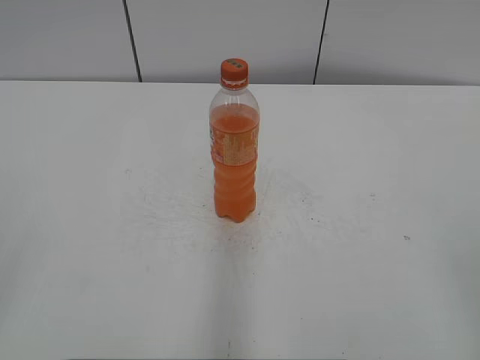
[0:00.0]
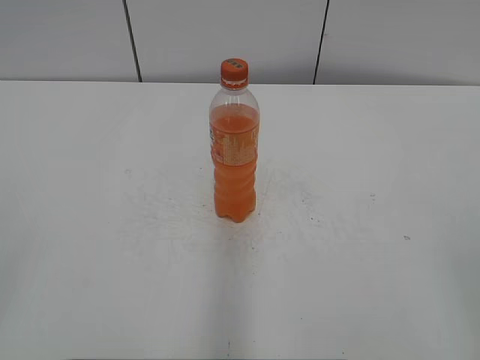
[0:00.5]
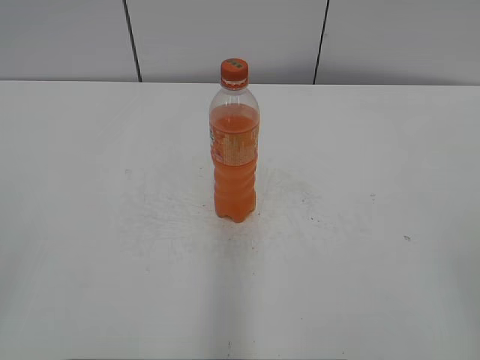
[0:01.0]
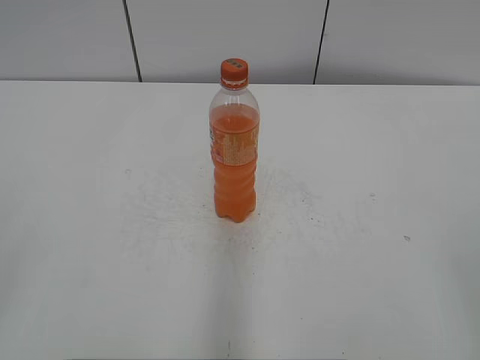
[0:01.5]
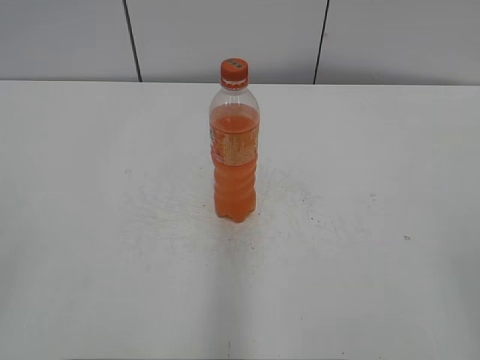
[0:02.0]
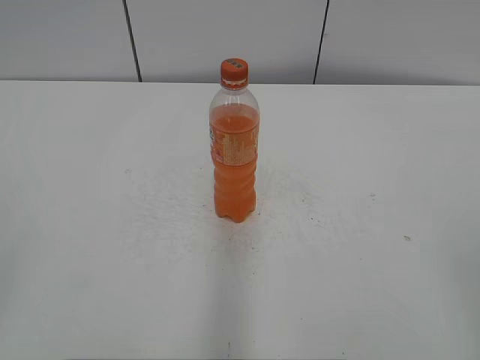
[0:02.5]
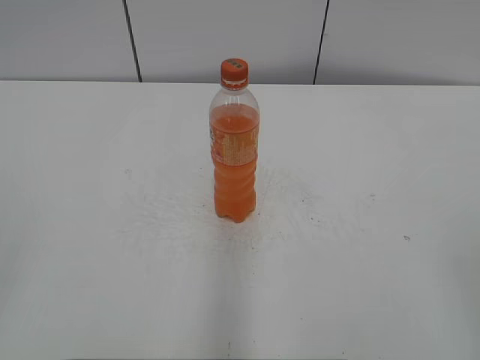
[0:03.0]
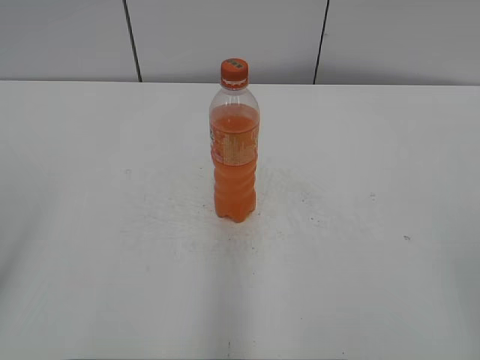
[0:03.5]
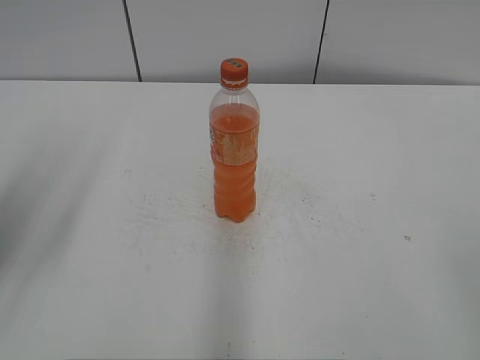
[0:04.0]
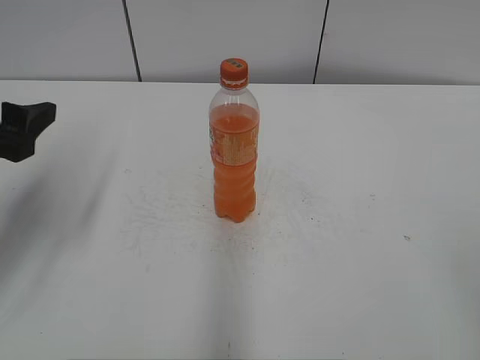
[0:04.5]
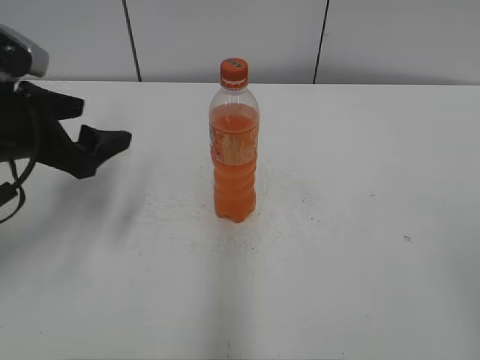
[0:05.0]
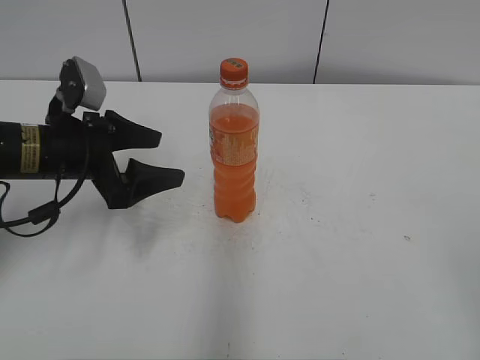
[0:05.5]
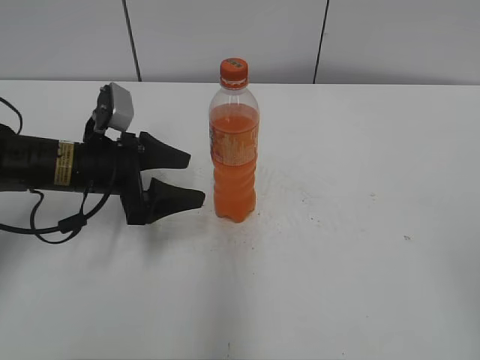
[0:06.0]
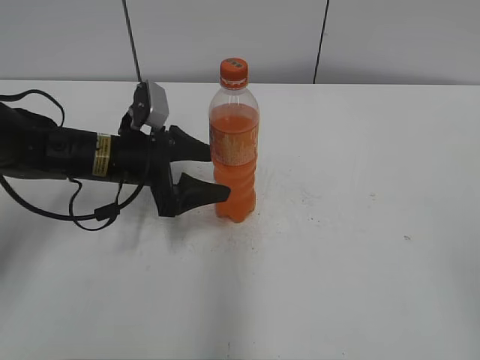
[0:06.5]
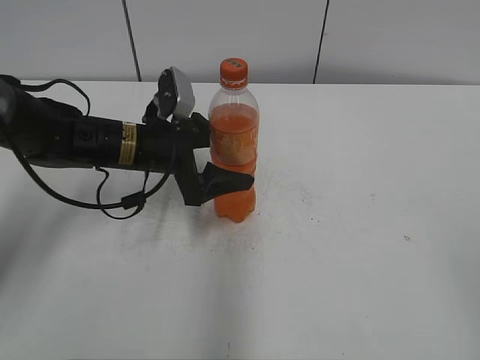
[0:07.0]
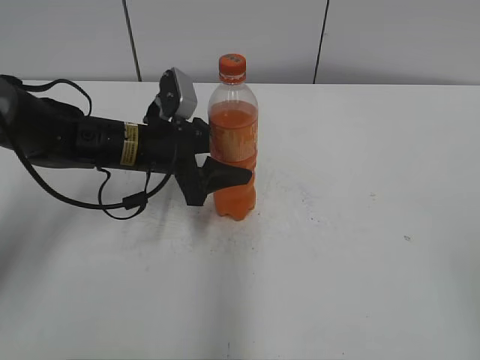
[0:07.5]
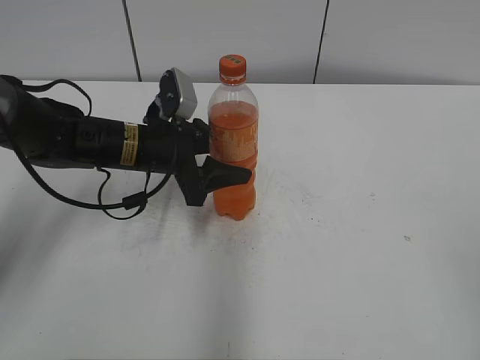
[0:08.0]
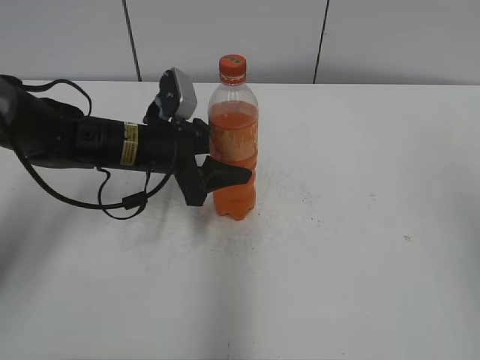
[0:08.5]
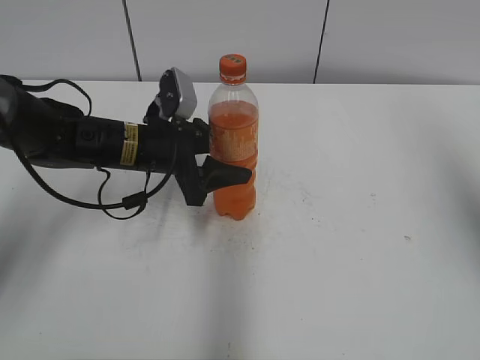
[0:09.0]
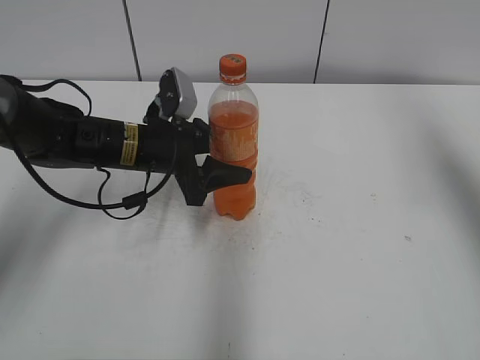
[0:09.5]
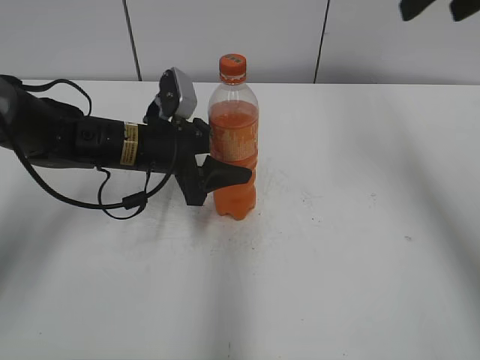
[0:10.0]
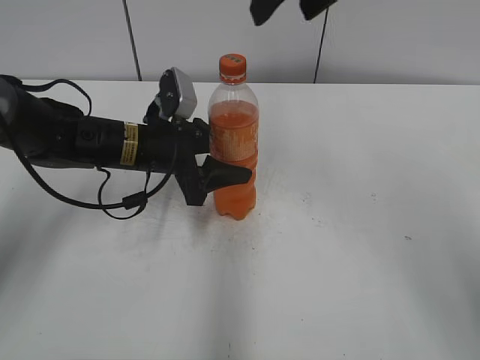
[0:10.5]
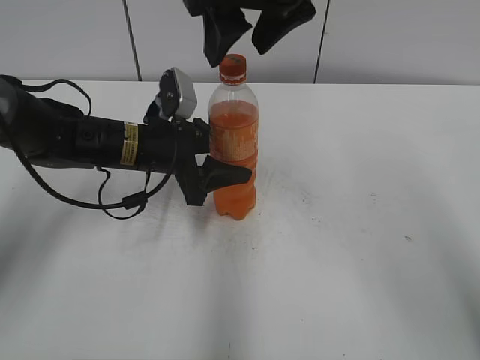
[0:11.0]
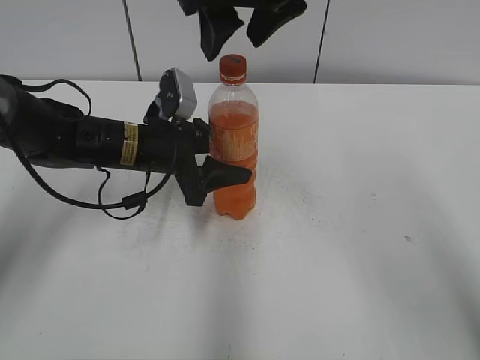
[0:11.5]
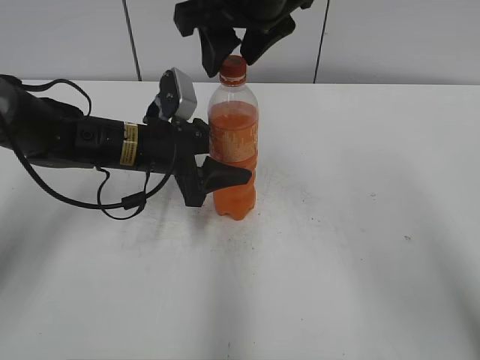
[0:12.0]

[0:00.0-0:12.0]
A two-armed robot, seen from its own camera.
Step, 0:00.0 to 0:07.5: Grab the Mirinda with the left hand.
0:02.0 to 0:04.0: The left gripper heads forward, covering roughly 20 cm, and opens its fingers.
0:04.0 to 0:06.0: The left gripper travels downward, forward and to the right by roughly 25 cm.
0:06.0 to 0:08.0: The left gripper is displaced to the right by roughly 5 cm, and closes.
0:08.0 to 0:10.0: The right gripper heads forward, covering approximately 35 cm.
0:10.0 to 0:12.0: The right gripper heads to the left, covering about 20 cm.

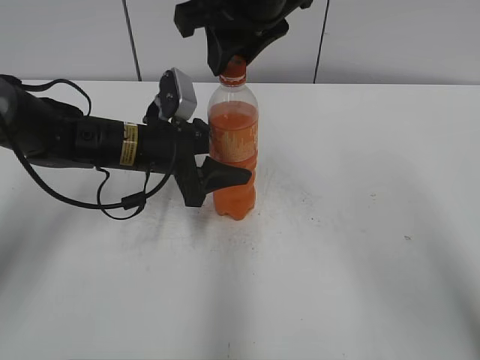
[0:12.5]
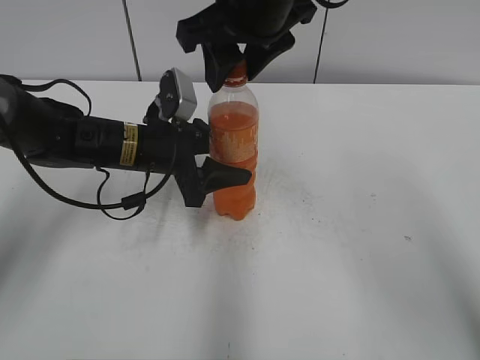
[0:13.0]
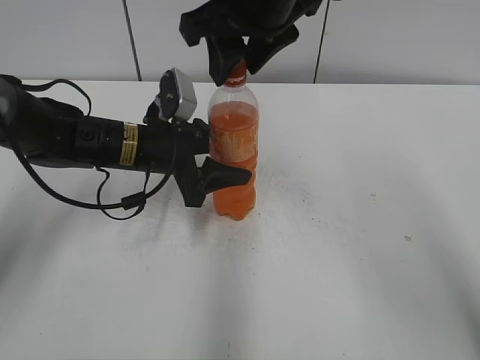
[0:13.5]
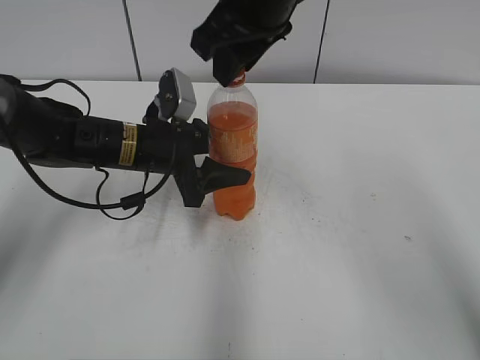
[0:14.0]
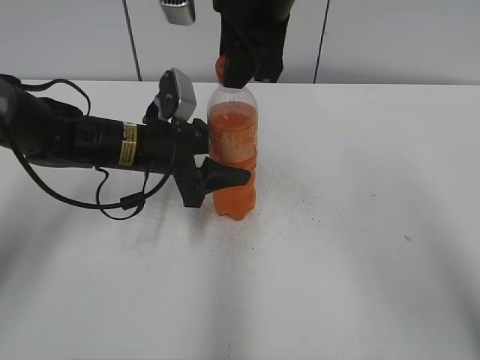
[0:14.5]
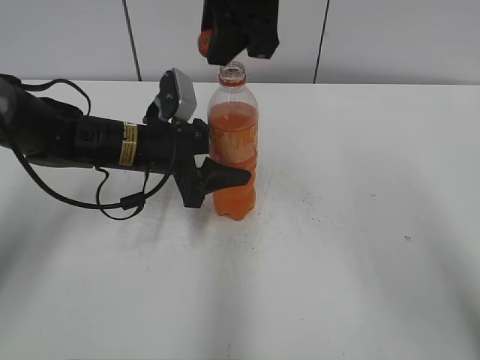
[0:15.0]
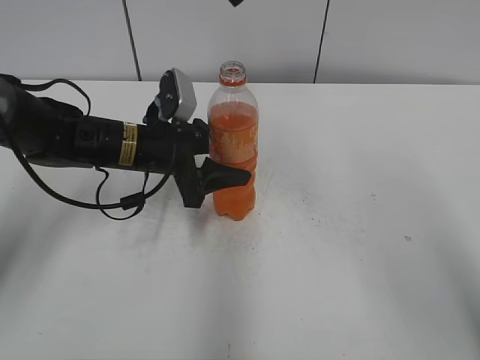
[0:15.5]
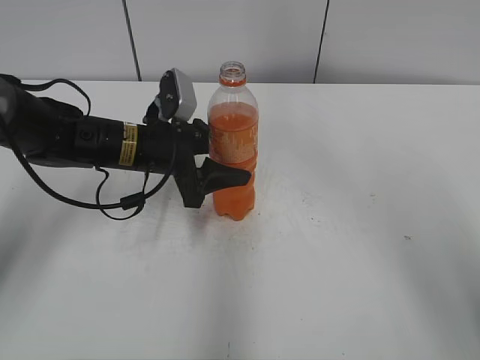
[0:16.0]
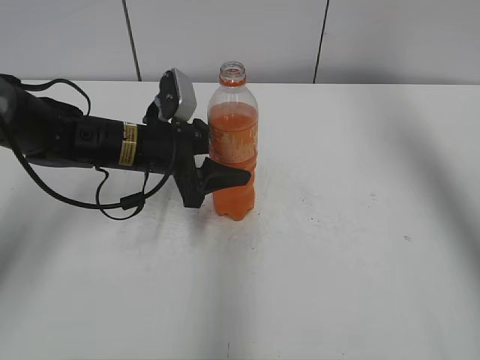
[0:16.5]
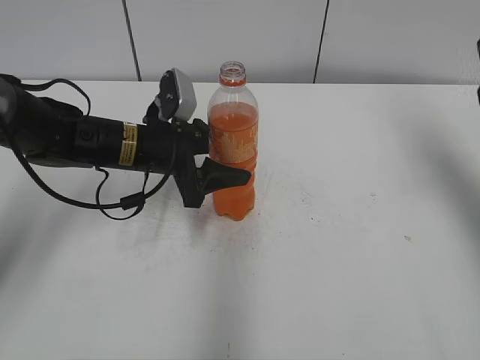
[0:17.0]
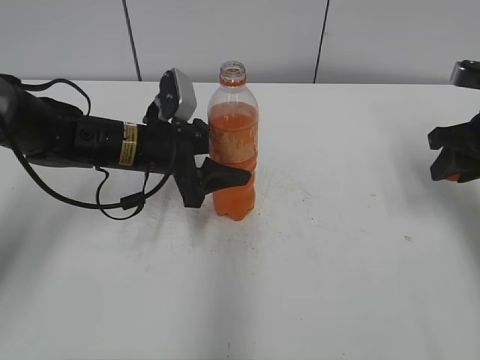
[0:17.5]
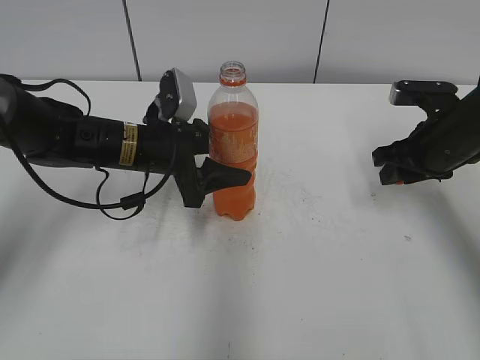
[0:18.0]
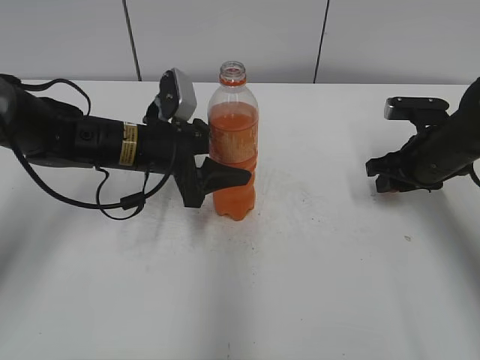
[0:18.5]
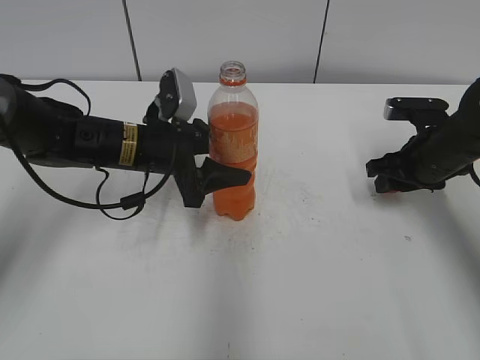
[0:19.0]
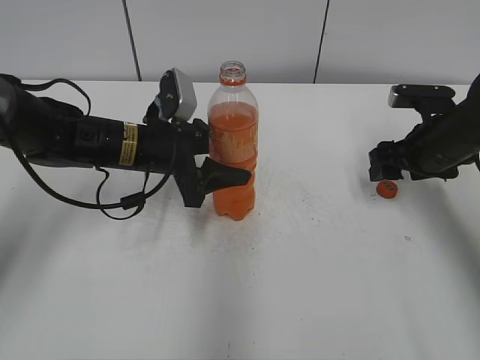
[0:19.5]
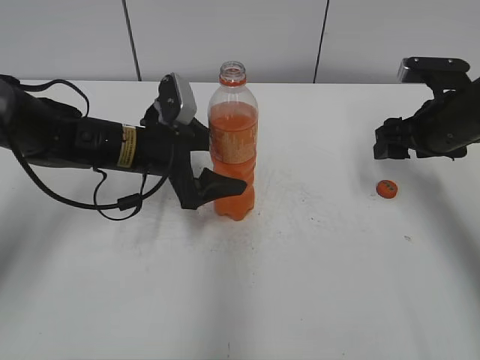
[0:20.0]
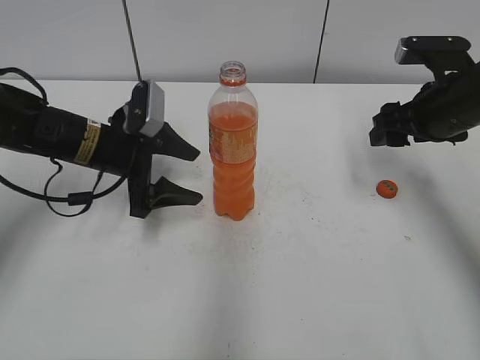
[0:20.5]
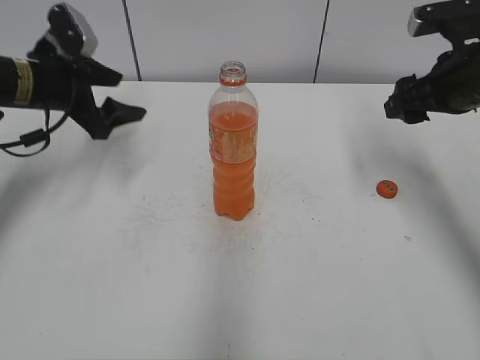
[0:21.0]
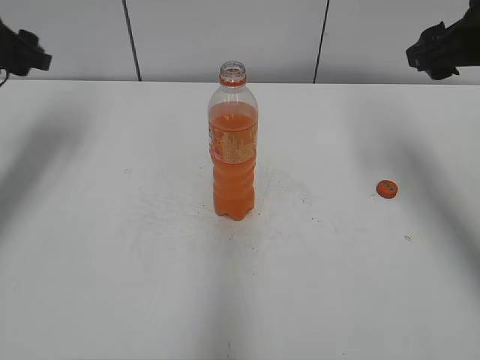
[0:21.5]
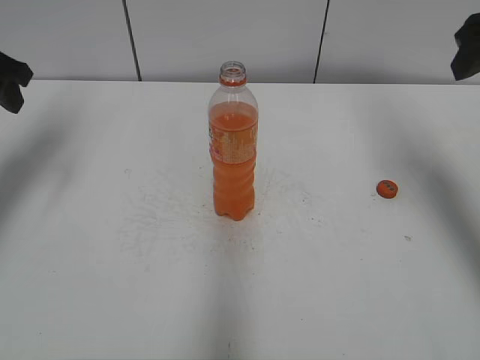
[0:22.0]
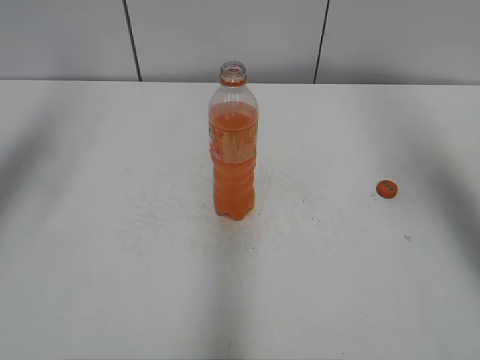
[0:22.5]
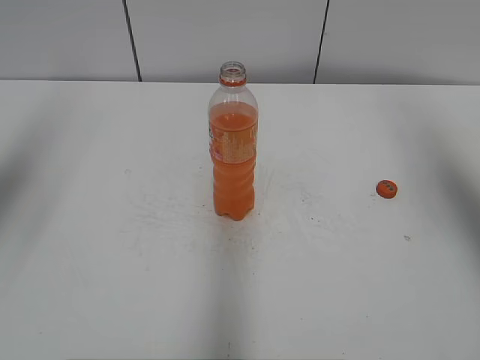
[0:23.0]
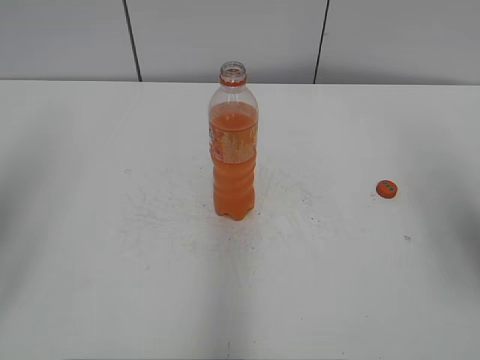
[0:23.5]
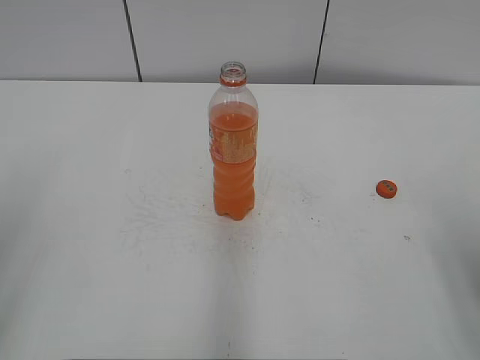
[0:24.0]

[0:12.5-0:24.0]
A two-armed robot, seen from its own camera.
Step, 0:15.0 to 0:19.0: Place the bottle cap on the right.
0:12.5 to 0:14.5: The right gripper opens, then closes once more.
0:14.5 to 0:16.5: The right gripper is displaced to the right by roughly 25 cm.
0:16.5 to 0:18.5: The right gripper heads downward, covering some 30 cm.
0:18.5 to 0:20.0: The right gripper moves upward, approximately 5 cm, and opens its fingers, while the left gripper opens.
0:20.0 to 0:22.0: The left gripper moves to the left and upward, roughly 25 cm, and closes, while the right gripper moves upward, some 15 cm.
0:22.0 to 0:24.0: The left gripper goes roughly 25 cm backward, while the right gripper heads backward and downward, covering some 20 cm.

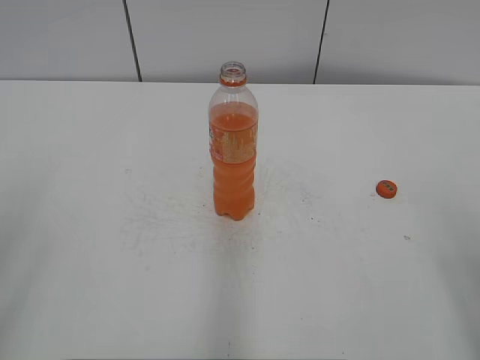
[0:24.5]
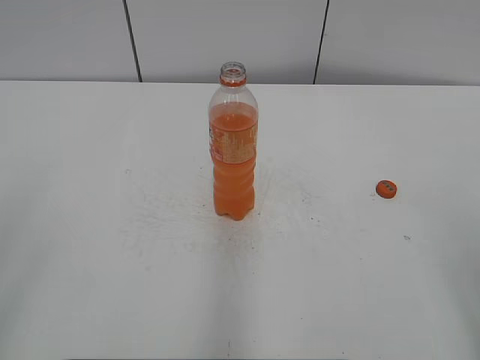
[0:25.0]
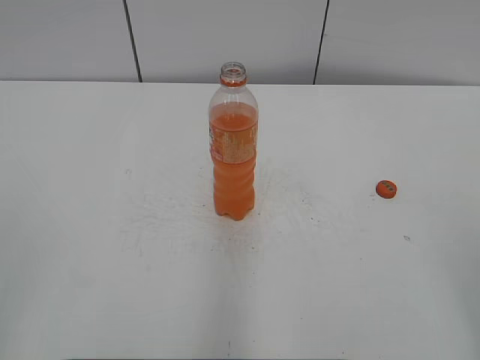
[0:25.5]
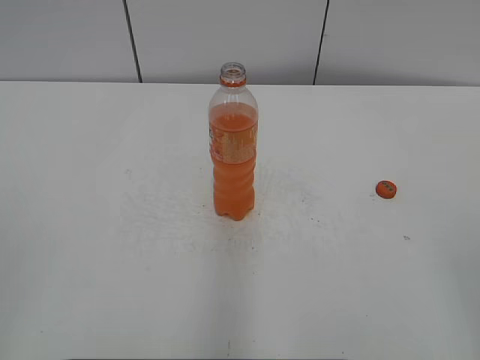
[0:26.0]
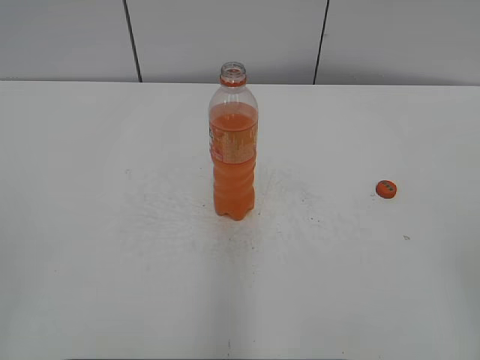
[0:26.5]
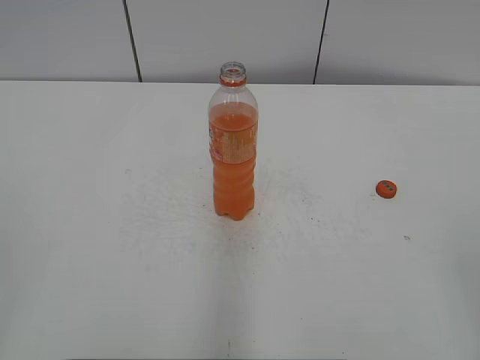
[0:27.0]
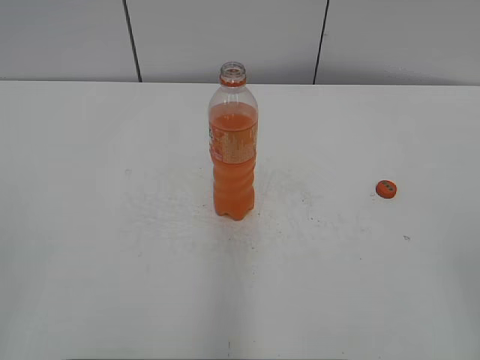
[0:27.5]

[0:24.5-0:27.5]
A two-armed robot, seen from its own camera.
0:26.0 to 0:27.5: Both grippers stay put.
